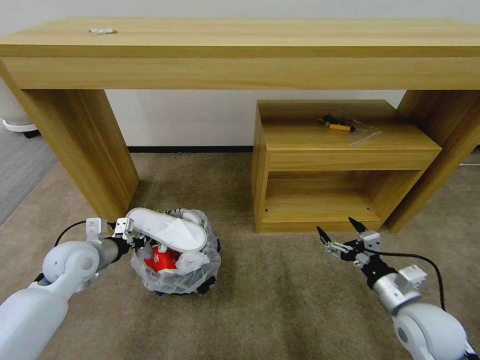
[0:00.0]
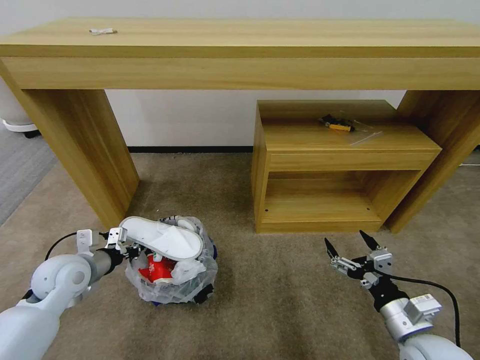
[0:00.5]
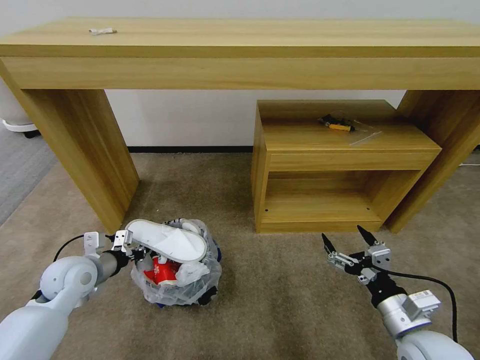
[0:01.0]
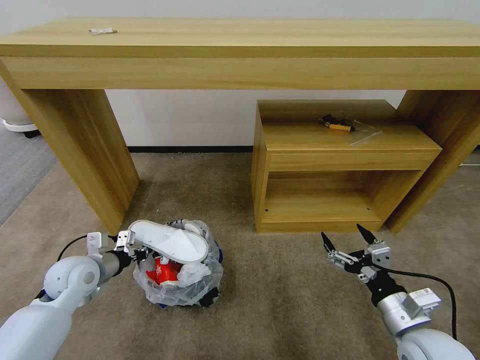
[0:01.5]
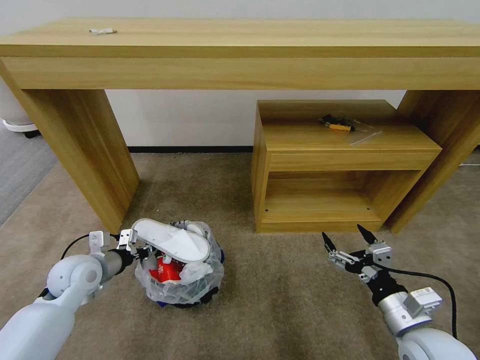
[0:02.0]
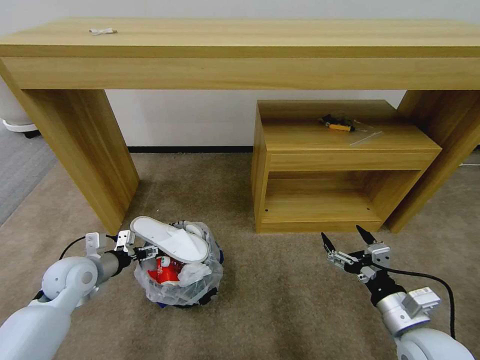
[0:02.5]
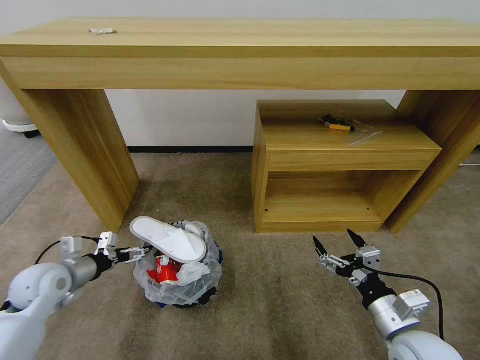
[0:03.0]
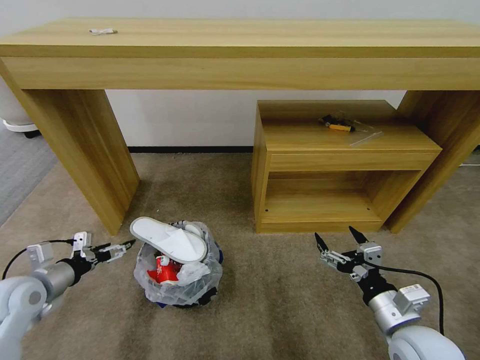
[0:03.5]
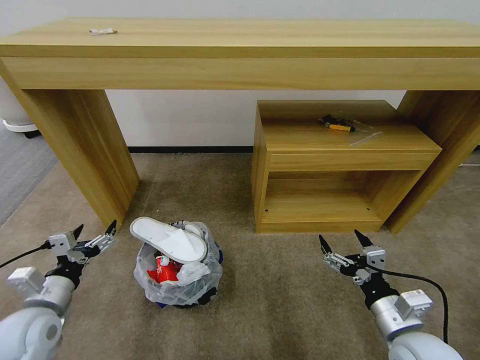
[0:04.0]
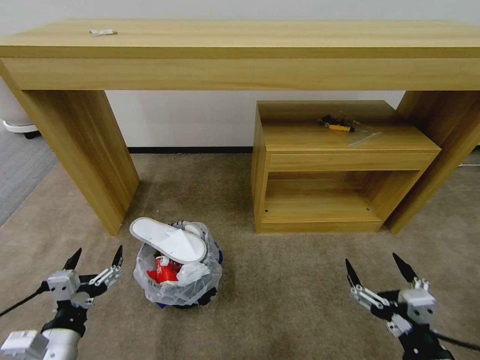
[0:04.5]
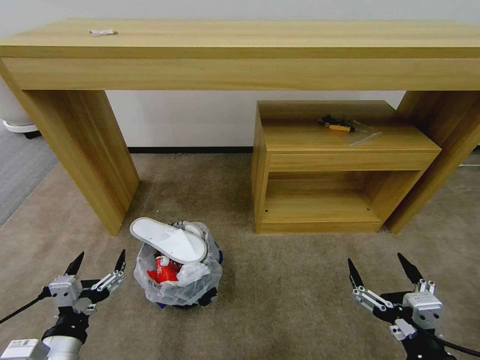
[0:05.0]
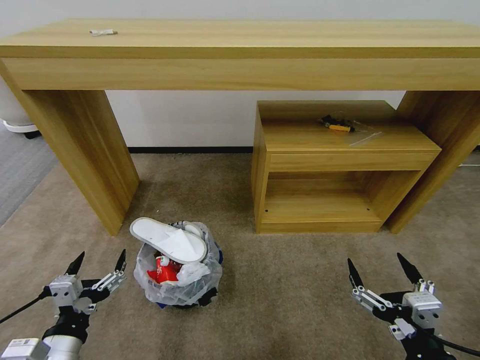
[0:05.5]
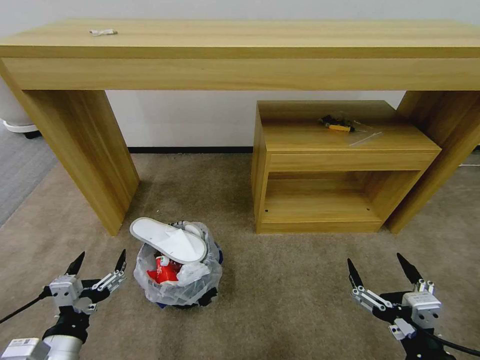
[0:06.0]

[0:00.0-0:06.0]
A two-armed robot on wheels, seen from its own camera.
Task of the whole recording: Pick up the trash bin and place the garbage on the floor into it.
0:00.0 to 0:02.0: The right gripper changes place by approximately 5 cm.
0:02.0 to 0:04.0: The left gripper is displaced backward by some 10 cm, and opens its fingers.
0:04.0 to 0:06.0: The right gripper heads backward, covering some 10 cm. Meanwhile the left gripper heads backward and to the right, covering roughly 15 cm.
